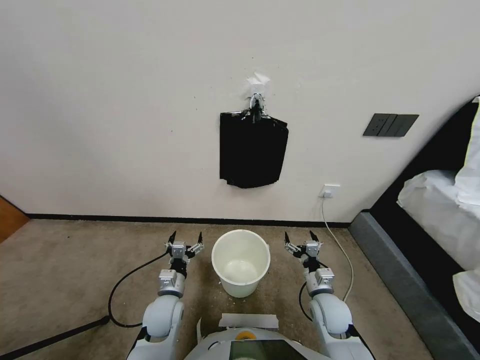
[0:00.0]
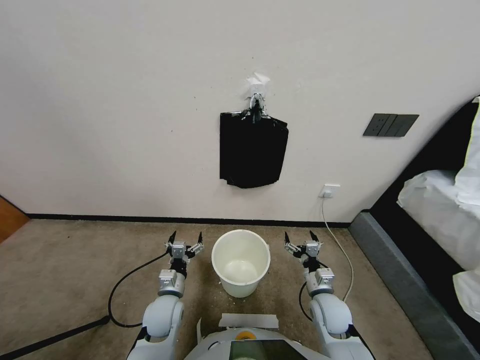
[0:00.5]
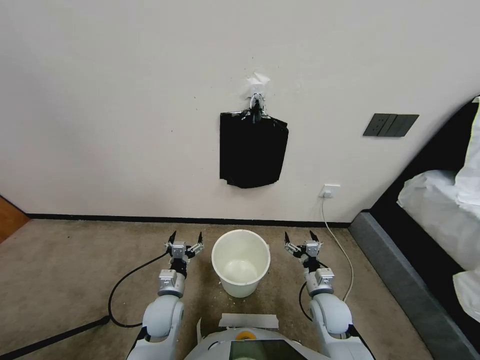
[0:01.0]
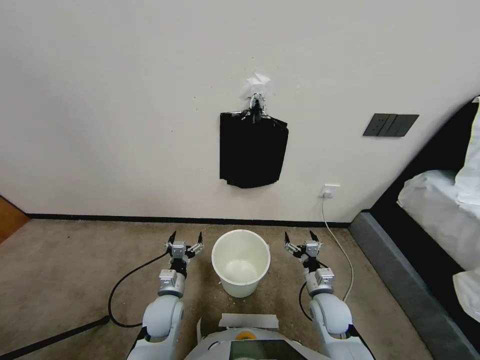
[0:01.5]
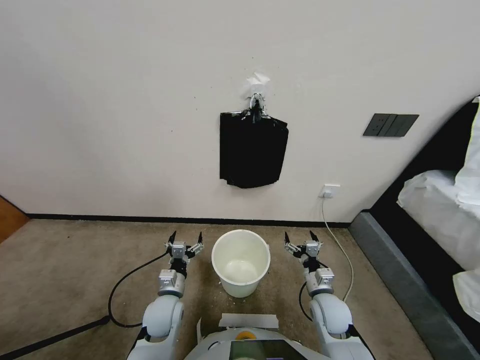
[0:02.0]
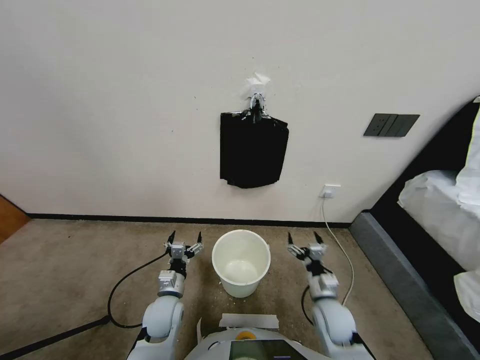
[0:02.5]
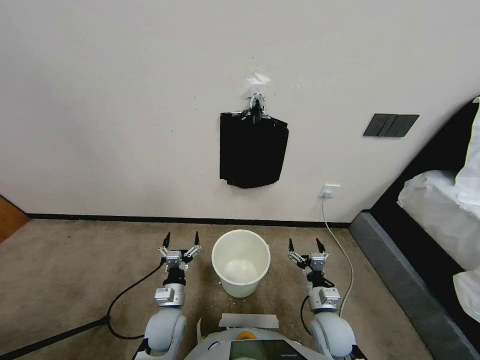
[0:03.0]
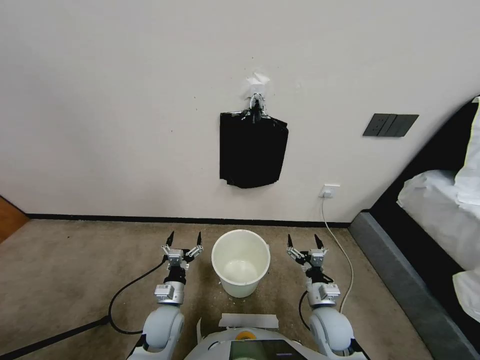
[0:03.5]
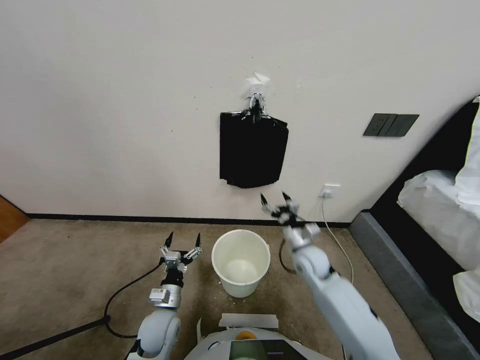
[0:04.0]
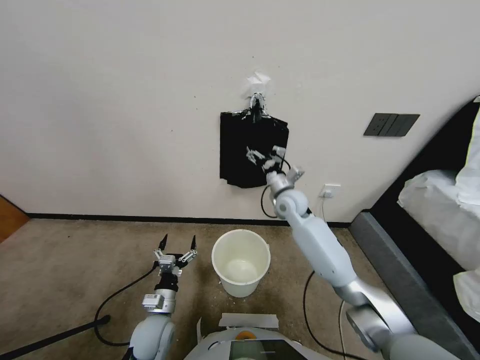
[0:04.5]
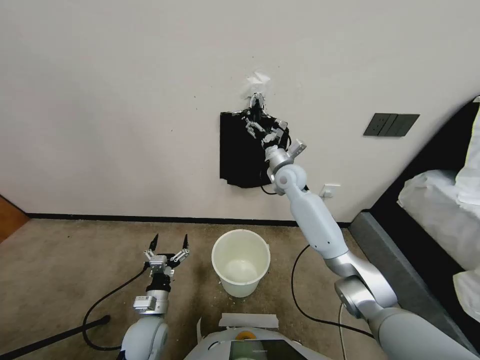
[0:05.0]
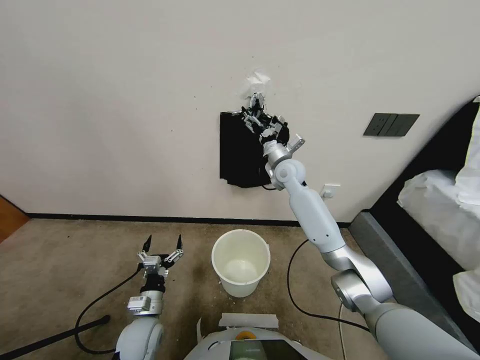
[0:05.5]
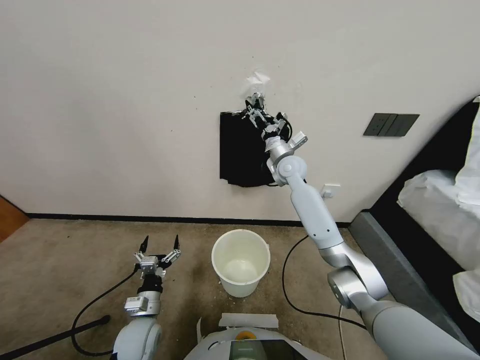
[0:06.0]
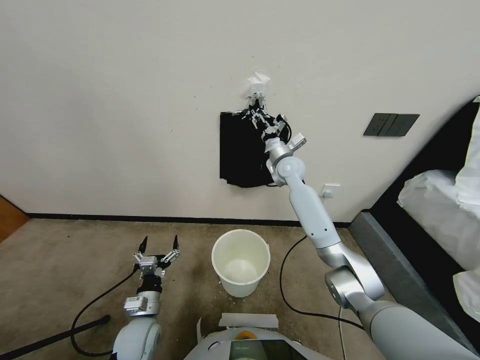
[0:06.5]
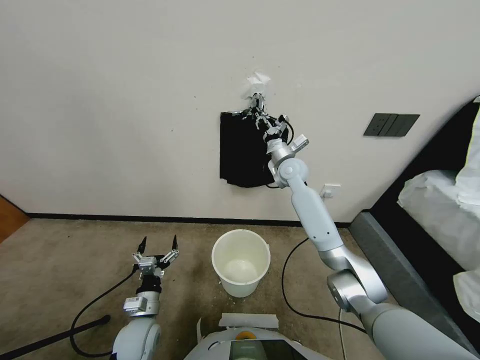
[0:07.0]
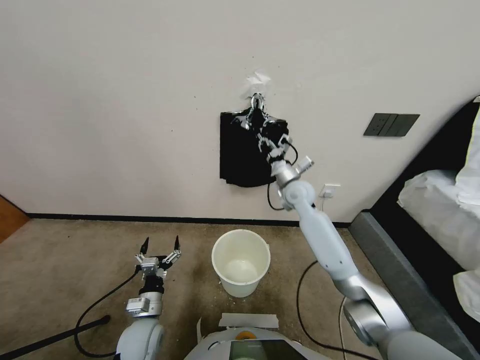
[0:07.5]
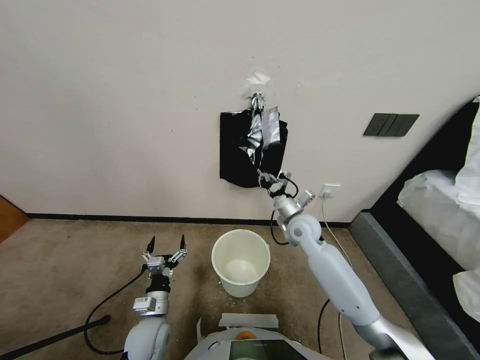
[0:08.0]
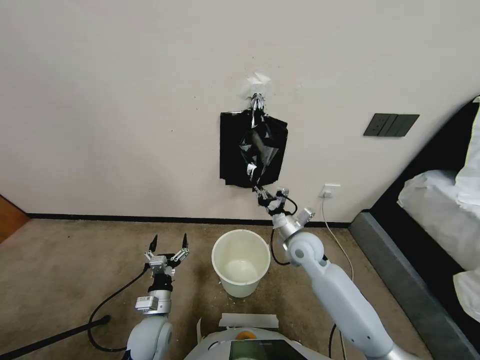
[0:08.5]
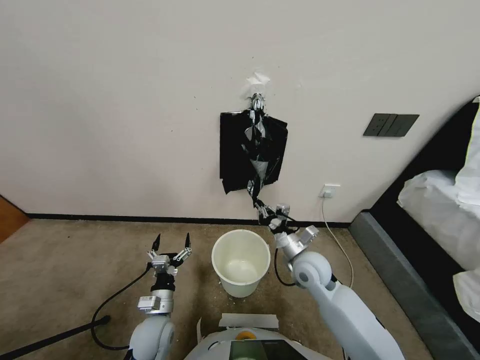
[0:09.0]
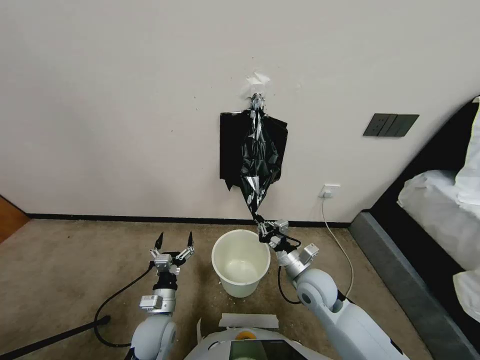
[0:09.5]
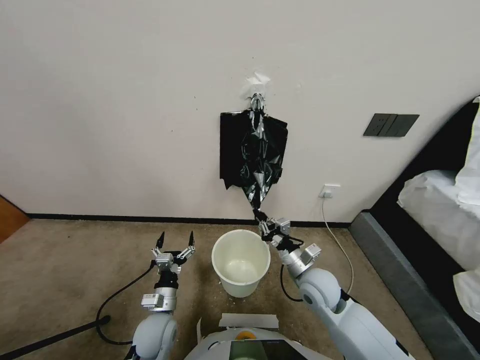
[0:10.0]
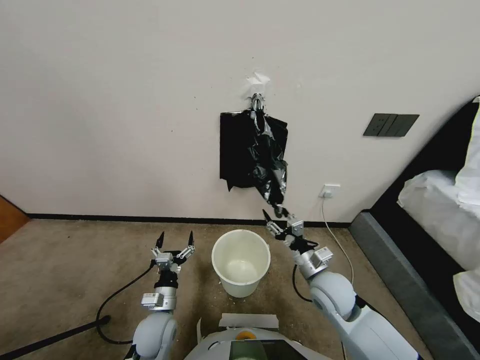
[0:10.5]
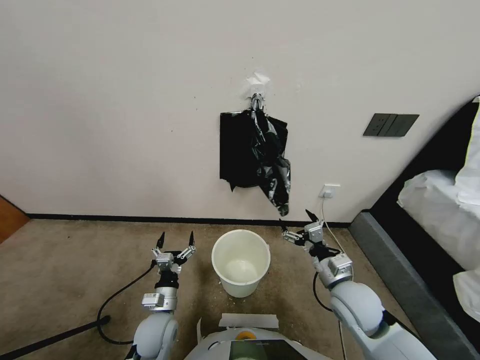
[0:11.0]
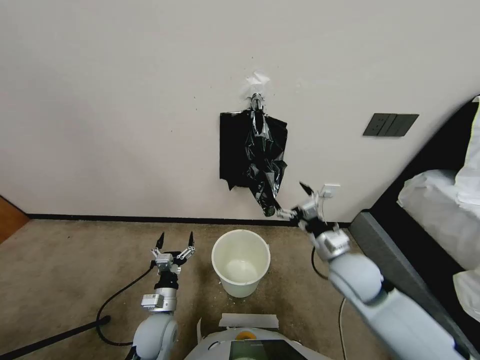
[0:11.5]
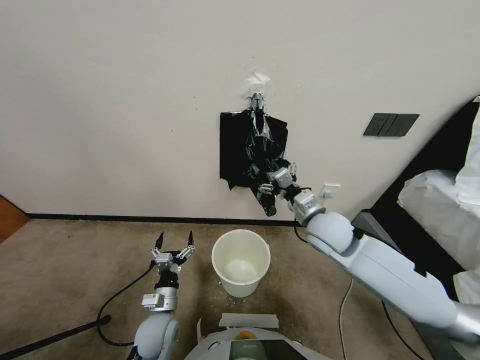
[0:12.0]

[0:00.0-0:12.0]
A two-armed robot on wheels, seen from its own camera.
Task of the whole recording: Place a trash bag onto the trash bin.
0:02.0 to 0:04.0: The right gripper goes approximately 20 cm forward and upward.
0:04.0 to 0:06.0: The right gripper shifts some 20 cm forward and upward.
0:06.0 to 0:08.0: The right gripper goes approximately 20 cm backward and downward, and closes its fingers.
0:08.0 to 0:10.0: The right gripper is displaced backward by roughly 15 cm.
0:10.0 to 0:12.0: The right gripper is displaced upward and forward by approximately 15 cm, and opens its fingers.

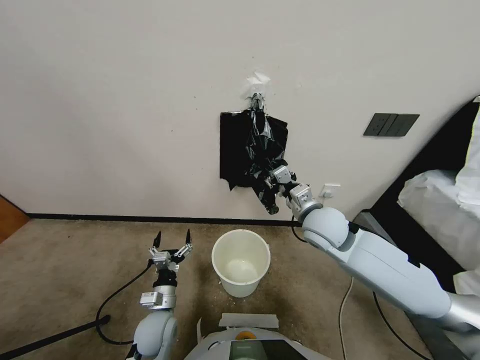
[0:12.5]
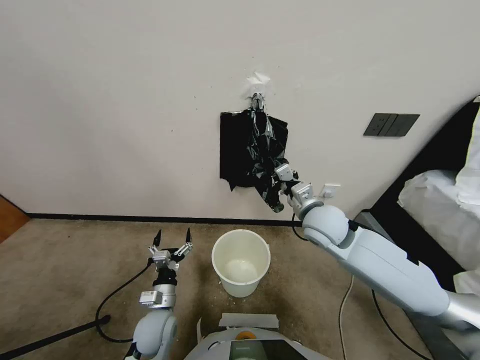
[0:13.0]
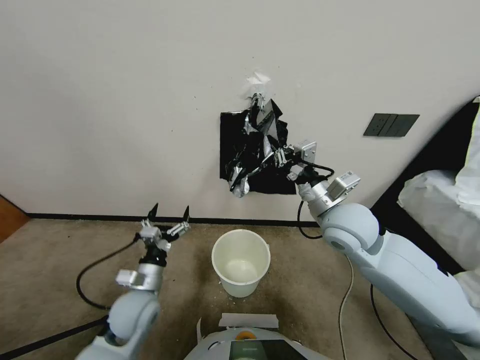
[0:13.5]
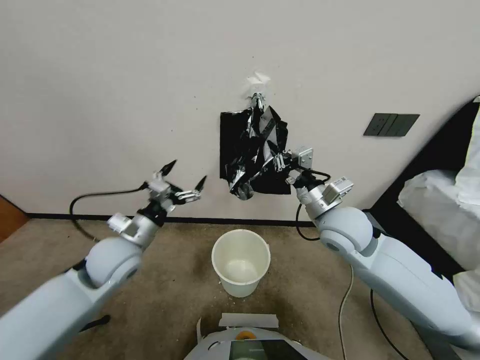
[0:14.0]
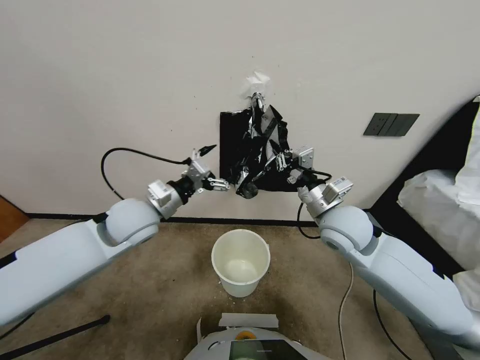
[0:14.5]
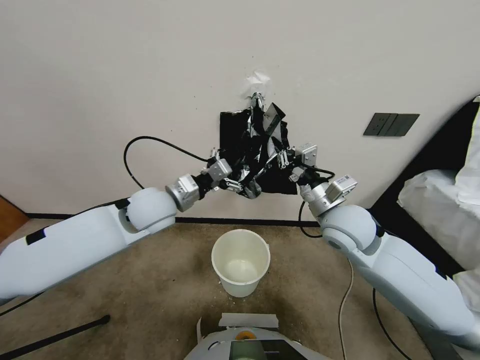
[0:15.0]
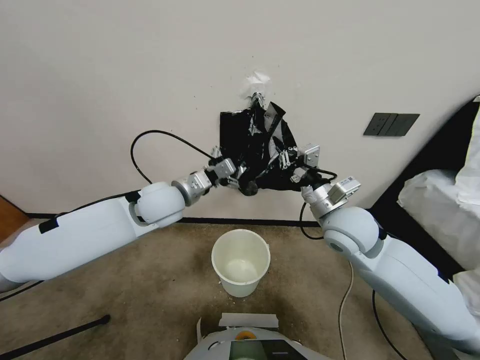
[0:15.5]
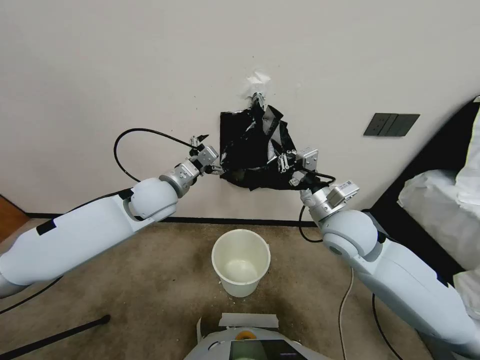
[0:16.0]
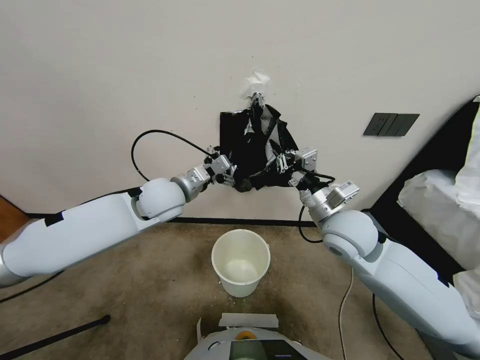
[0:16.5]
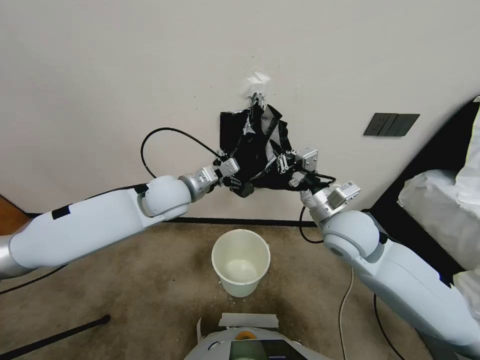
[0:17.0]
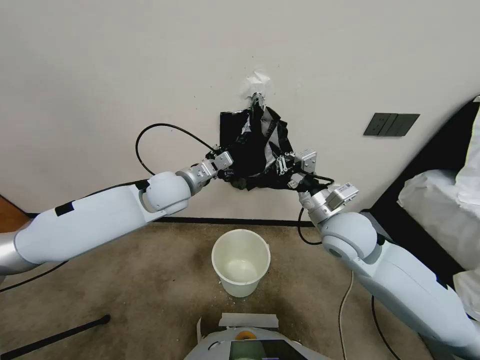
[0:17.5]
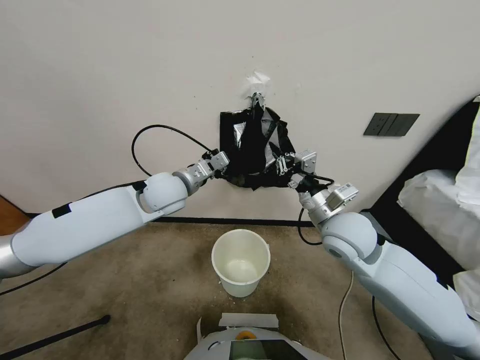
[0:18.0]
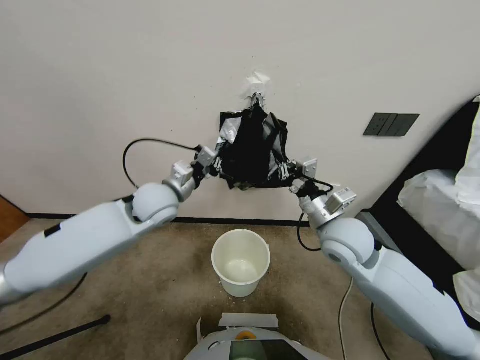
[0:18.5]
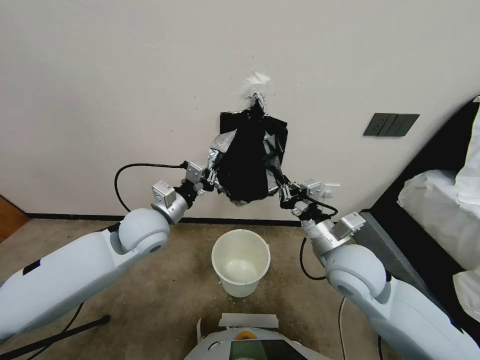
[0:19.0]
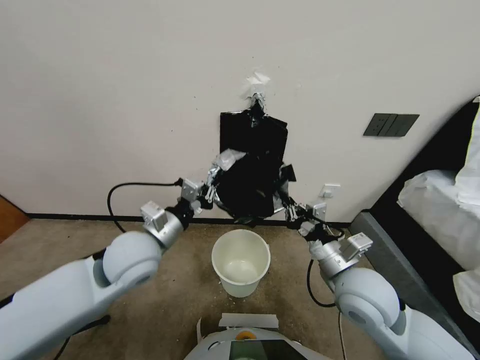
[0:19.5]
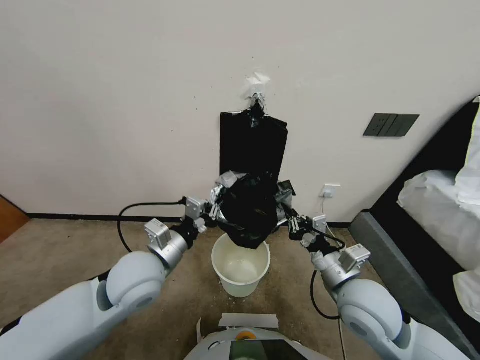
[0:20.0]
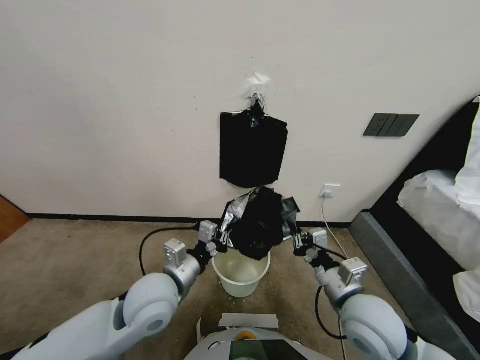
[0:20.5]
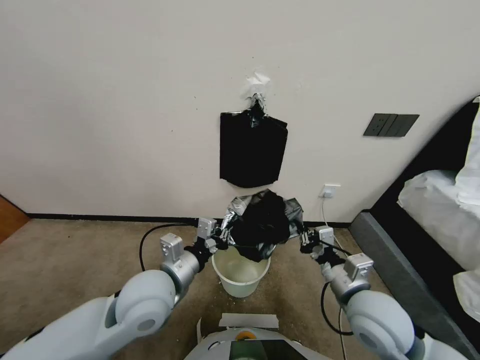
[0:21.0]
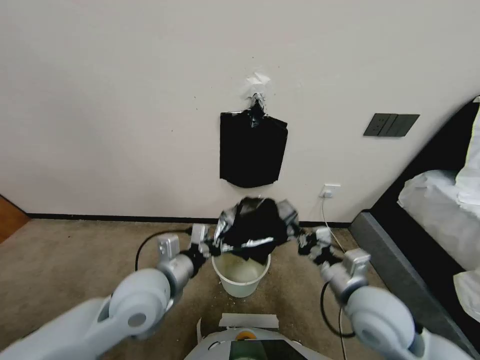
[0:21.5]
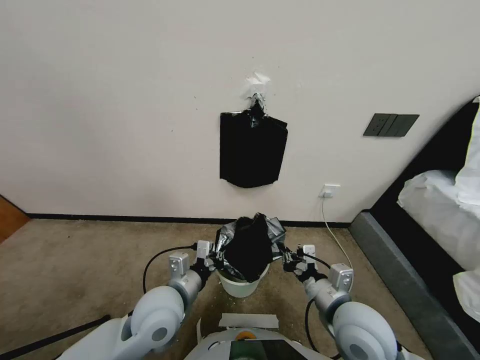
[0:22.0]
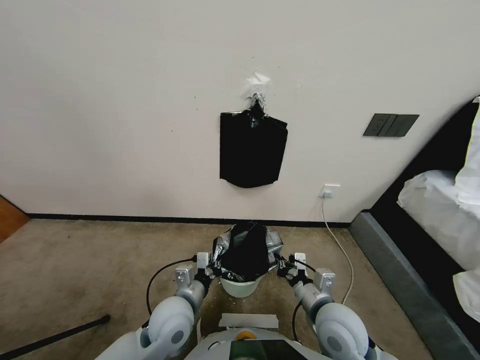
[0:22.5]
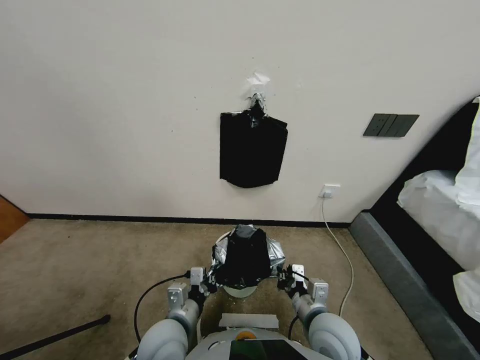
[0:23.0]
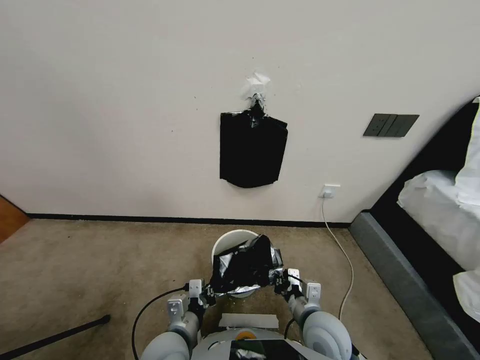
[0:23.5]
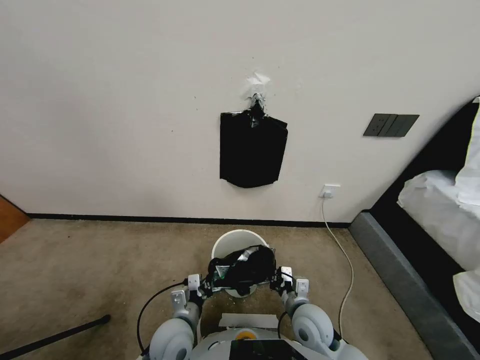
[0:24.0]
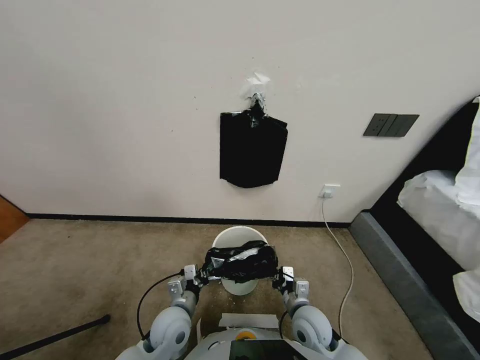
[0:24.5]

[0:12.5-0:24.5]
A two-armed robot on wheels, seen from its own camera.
Task of the whole recording: Place a trash bag onto the trash bin.
0:12.5 to 0:14.5: The left gripper heads upward and forward, covering some 35 cm.
0:14.5 to 0:16.5: The left gripper moves roughly 5 cm.
0:16.5 to 0:18.5: The left gripper moves about 5 cm, and closes its fingers.
0:18.5 to 0:20.5: The two grippers go some 15 cm backward and downward.
0:20.5 to 0:22.5: The grippers both shift downward by roughly 5 cm.
0:22.5 to 0:24.5: Both grippers move downward, about 10 cm.

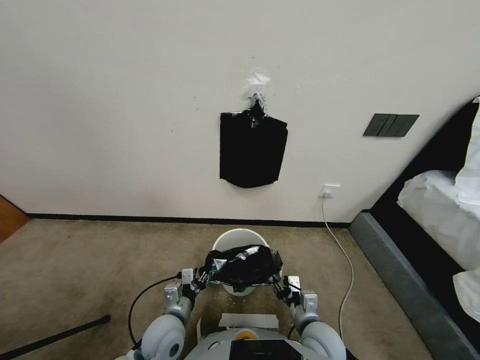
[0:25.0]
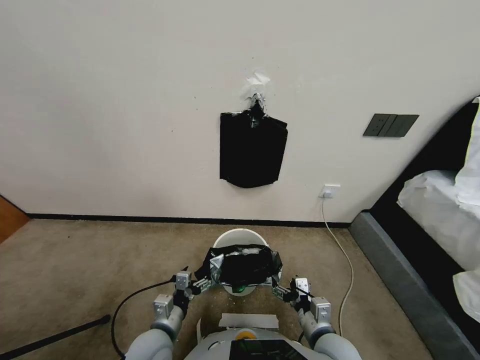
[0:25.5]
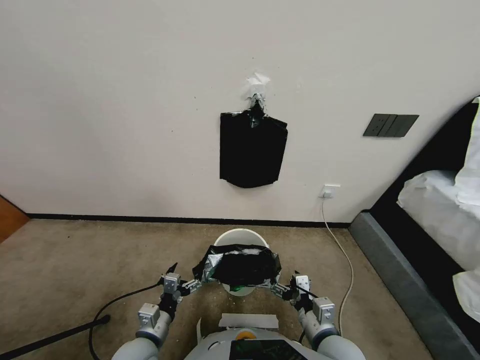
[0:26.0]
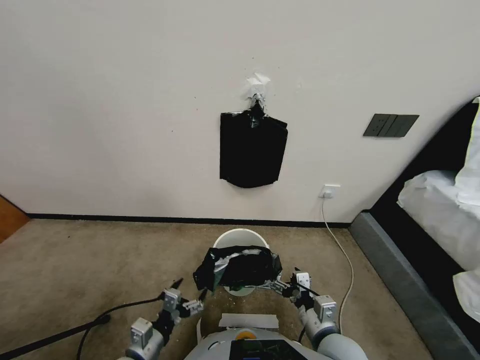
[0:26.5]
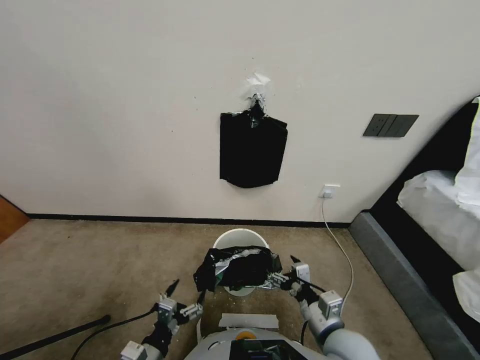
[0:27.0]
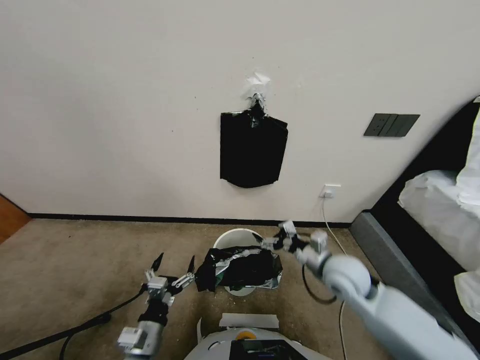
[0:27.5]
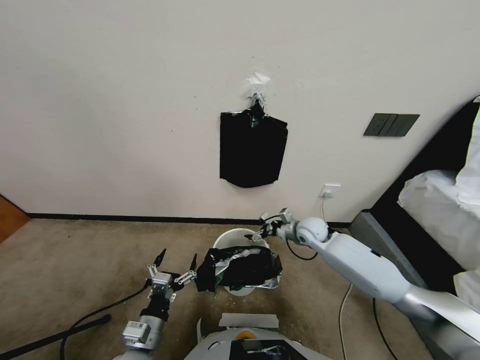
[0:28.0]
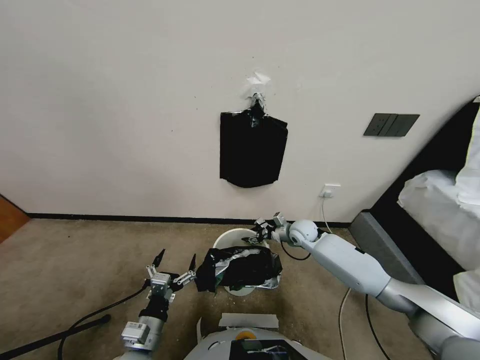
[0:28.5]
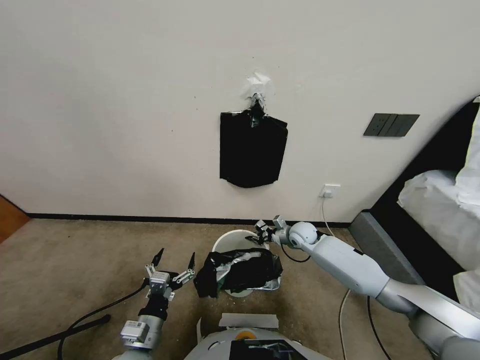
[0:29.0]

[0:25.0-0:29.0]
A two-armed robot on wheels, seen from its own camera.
Task of the whole recording: Place a trash bag onto the trash bin.
0:25.0 to 0:27.0: The right gripper is displaced upward by roughly 10 cm, and opens up; the left gripper is displaced backward by approximately 10 cm, and opens up.
0:27.0 to 0:29.0: The right gripper goes some 30 cm forward, and closes up.
